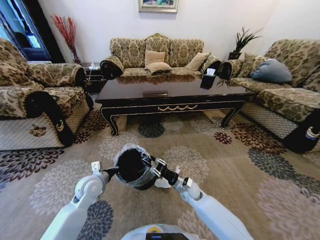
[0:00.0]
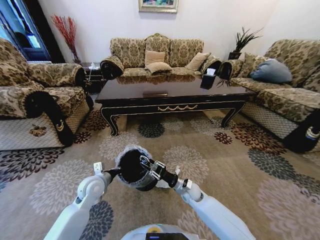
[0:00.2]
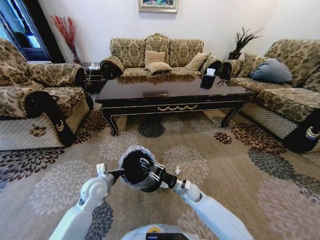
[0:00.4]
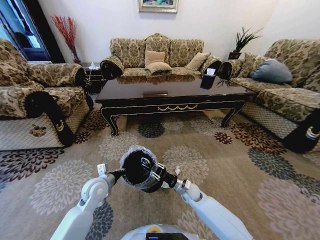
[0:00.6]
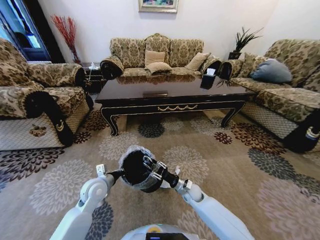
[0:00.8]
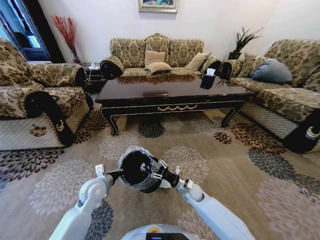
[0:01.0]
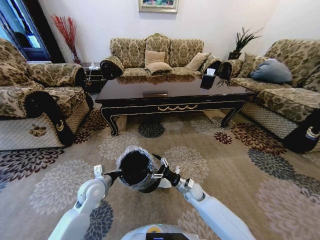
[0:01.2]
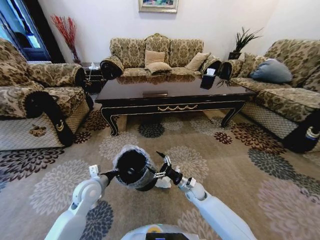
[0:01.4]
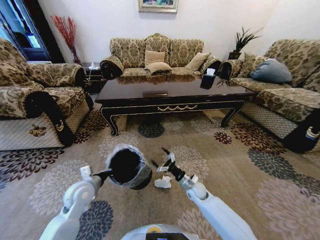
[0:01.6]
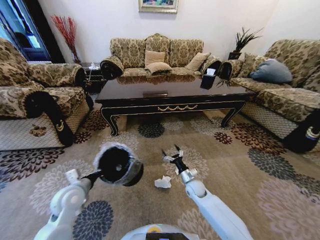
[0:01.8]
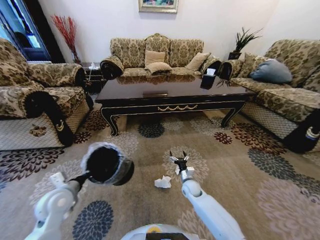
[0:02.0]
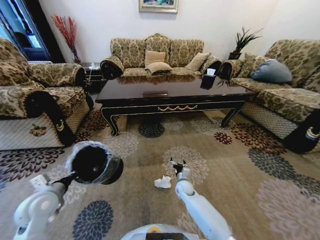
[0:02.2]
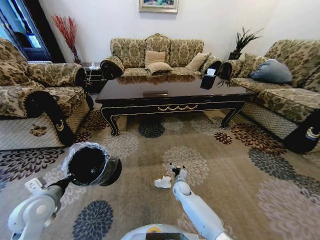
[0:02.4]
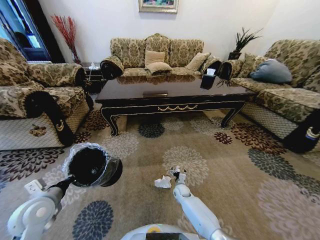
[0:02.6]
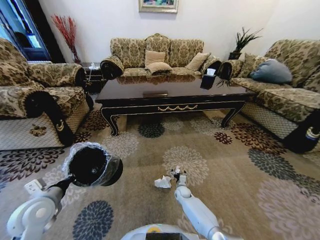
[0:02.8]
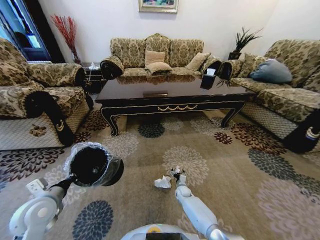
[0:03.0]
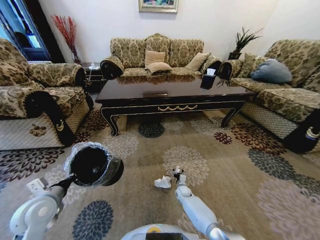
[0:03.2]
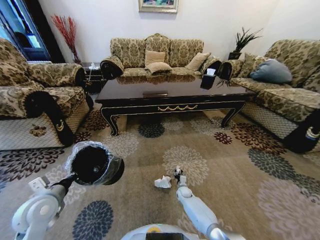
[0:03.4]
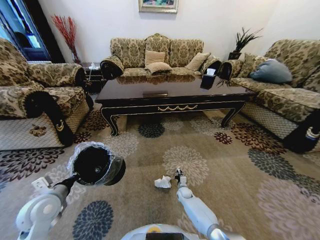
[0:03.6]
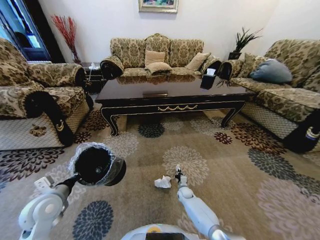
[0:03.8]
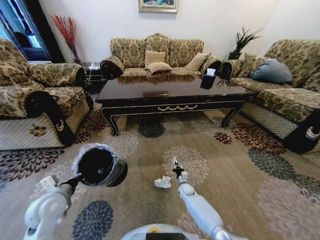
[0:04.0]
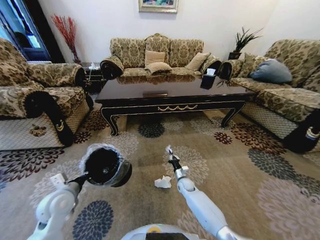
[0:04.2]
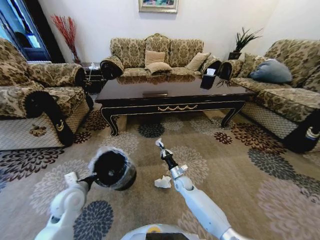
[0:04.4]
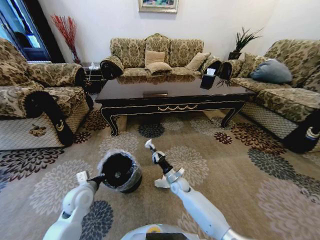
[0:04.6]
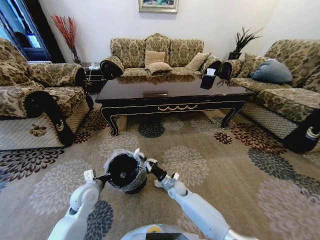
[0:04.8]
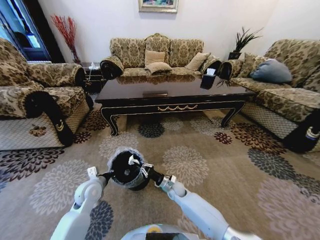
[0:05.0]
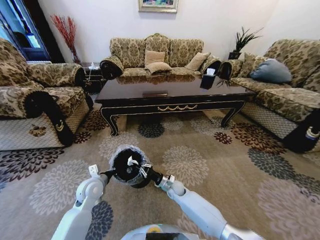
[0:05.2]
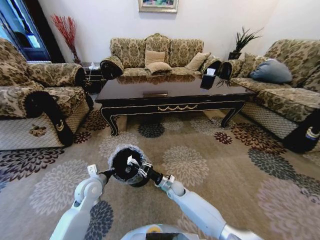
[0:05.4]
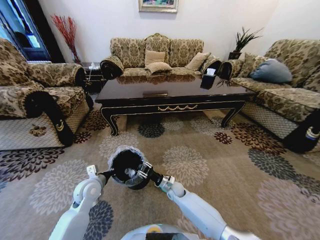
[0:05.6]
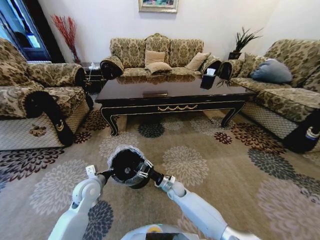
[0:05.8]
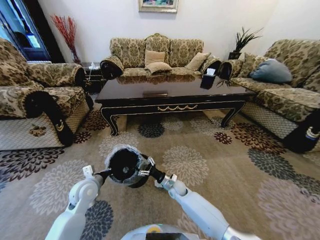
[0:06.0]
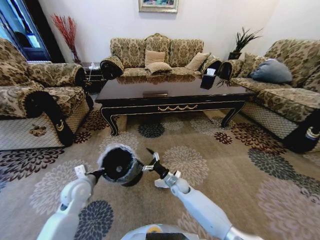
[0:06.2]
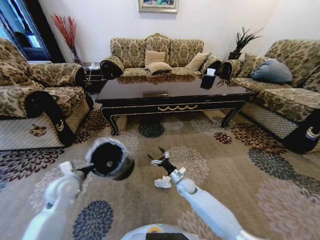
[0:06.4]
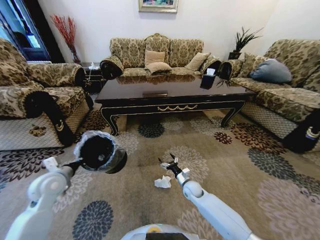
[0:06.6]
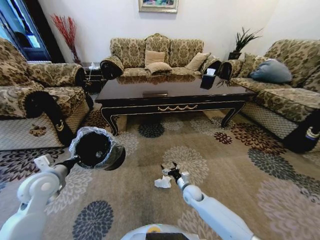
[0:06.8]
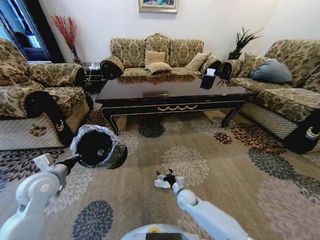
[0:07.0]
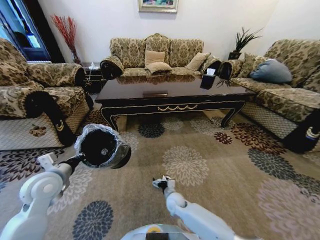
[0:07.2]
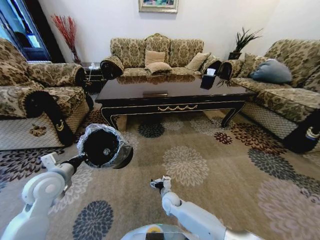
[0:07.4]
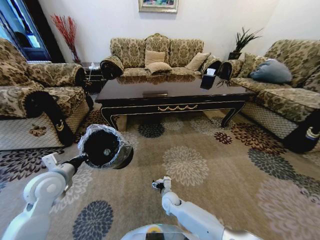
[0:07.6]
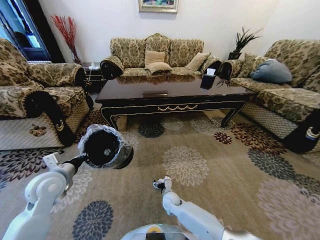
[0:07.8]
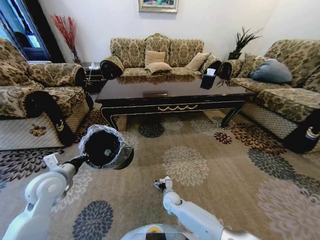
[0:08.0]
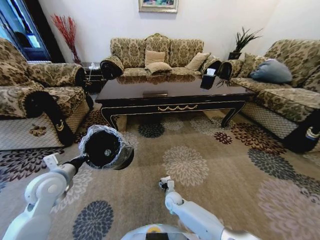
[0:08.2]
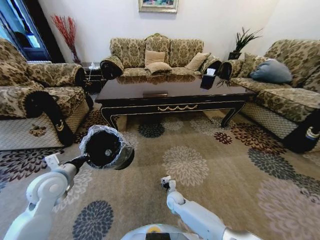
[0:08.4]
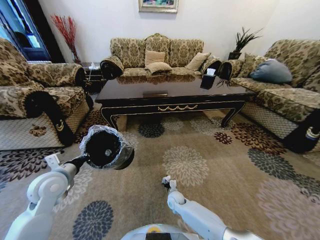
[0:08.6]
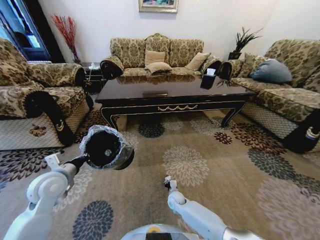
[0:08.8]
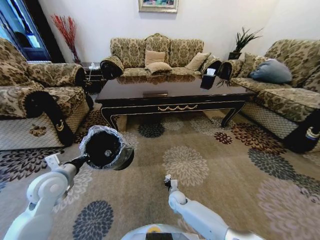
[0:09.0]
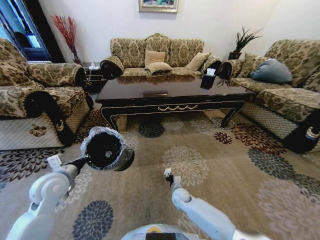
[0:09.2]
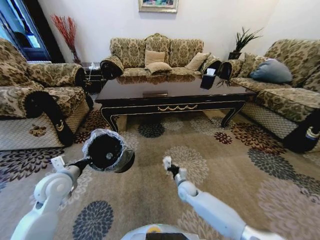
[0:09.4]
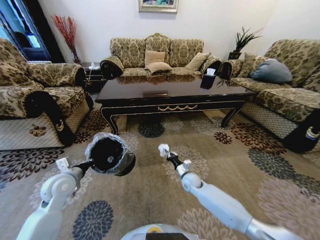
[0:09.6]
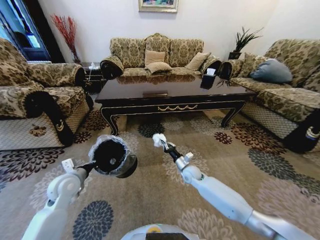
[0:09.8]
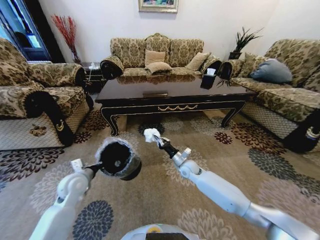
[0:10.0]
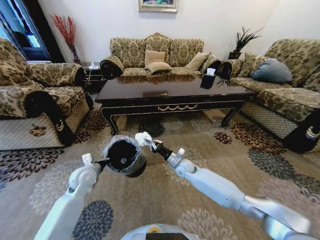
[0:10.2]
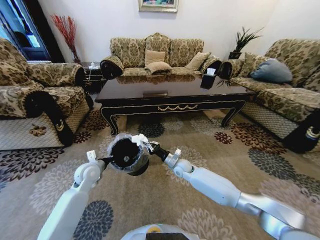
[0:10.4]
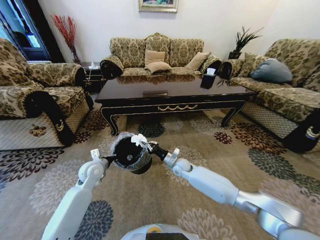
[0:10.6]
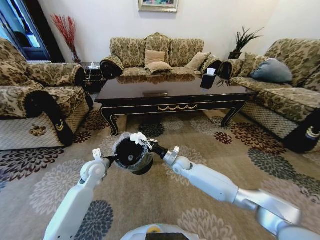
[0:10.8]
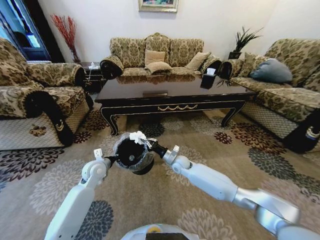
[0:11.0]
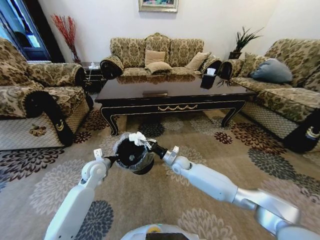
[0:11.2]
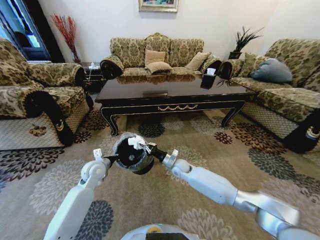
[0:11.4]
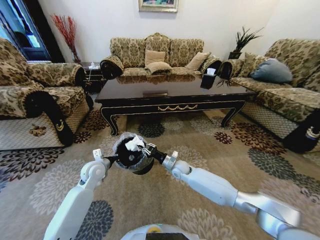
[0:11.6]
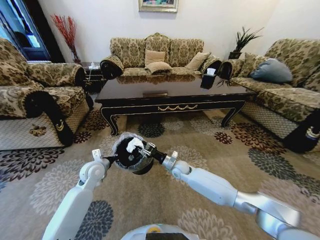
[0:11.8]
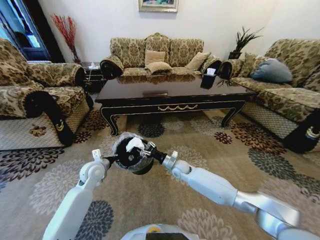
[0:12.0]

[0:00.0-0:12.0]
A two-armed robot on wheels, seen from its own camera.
Task of the whole recording: Move to the front of the table and pick up the trash from the floor, then place it into the trash bin.
0:00.0 to 0:01.6: The right gripper opens.
0:01.6 to 0:03.0: The left gripper shifts roughly 10 cm to the left and backward; the right gripper shifts roughly 15 cm downward.
0:03.0 to 0:04.4: The left gripper heads to the right and downward, covering about 10 cm. Meanwhile the right gripper goes approximately 10 cm upward, and closes up.
0:04.4 to 0:06.0: The right gripper opens.
0:06.0 to 0:07.6: The left gripper goes some 10 cm upward and to the left; the right gripper moves backward, approximately 5 cm, and moves about 10 cm to the right and comes back.
0:07.6 to 0:09.0: The right gripper shifts by roughly 5 cm, and closes up.
0:09.0 to 0:10.4: The left gripper heads forward, downward and to the right, covering some 15 cm. The right gripper is displaced upward and forward by roughly 20 cm.
0:10.4 to 0:12.0: The right gripper opens up.

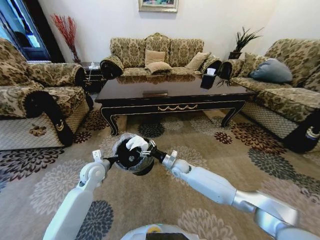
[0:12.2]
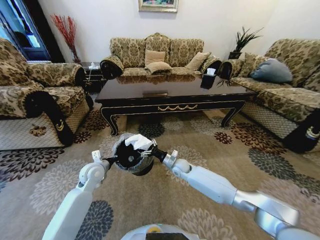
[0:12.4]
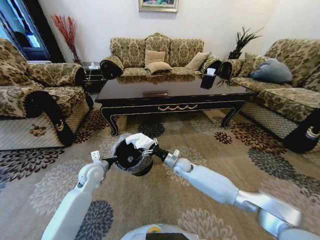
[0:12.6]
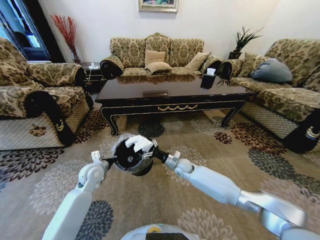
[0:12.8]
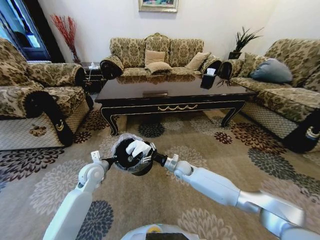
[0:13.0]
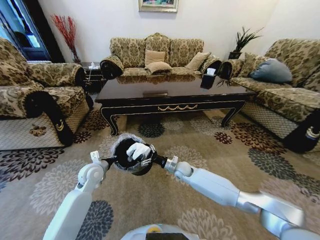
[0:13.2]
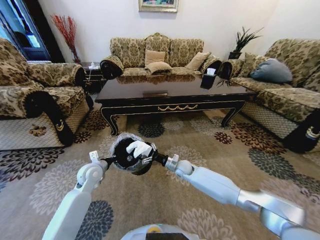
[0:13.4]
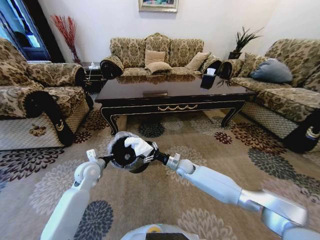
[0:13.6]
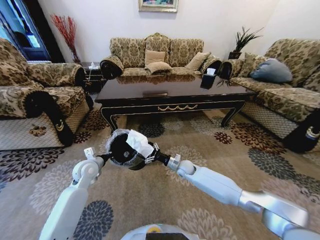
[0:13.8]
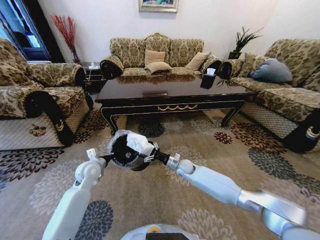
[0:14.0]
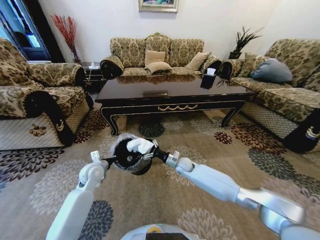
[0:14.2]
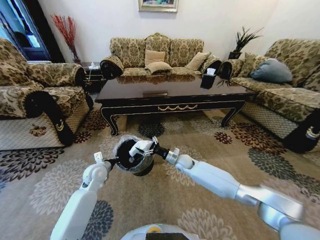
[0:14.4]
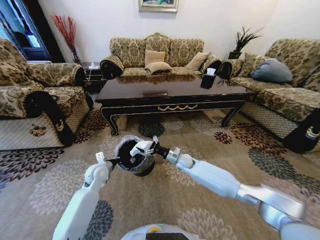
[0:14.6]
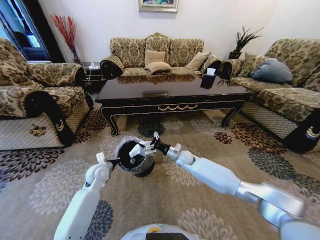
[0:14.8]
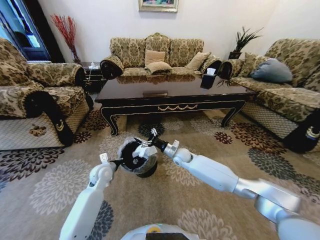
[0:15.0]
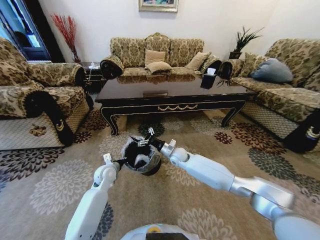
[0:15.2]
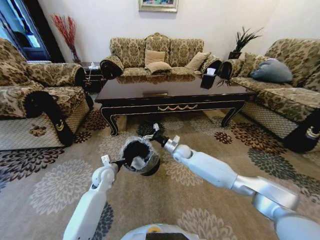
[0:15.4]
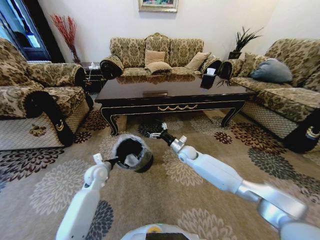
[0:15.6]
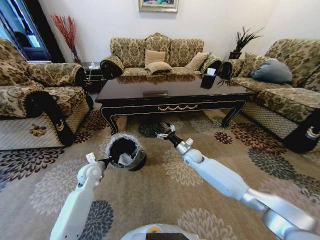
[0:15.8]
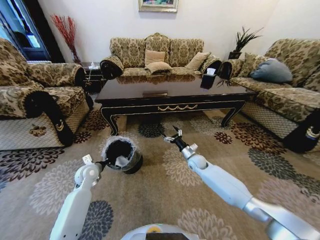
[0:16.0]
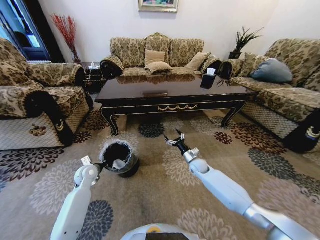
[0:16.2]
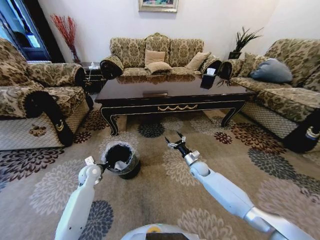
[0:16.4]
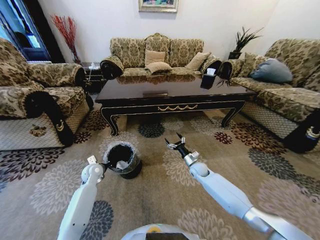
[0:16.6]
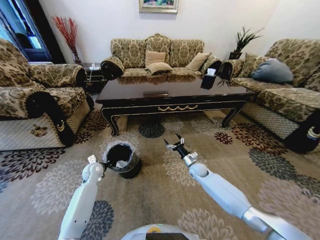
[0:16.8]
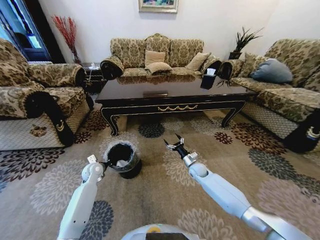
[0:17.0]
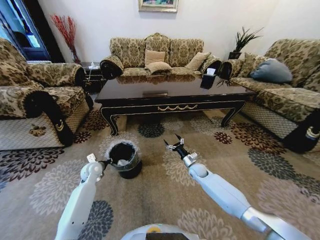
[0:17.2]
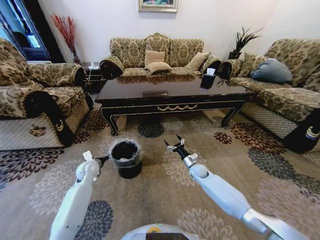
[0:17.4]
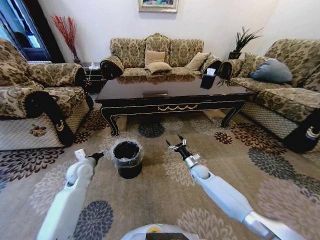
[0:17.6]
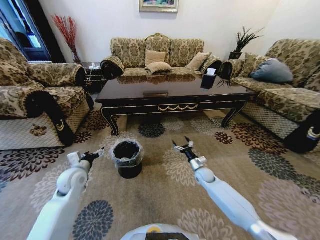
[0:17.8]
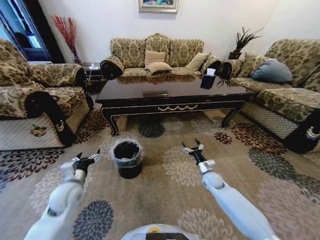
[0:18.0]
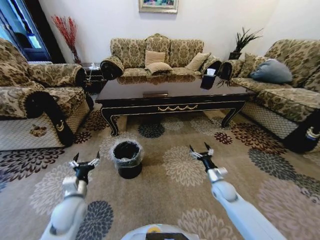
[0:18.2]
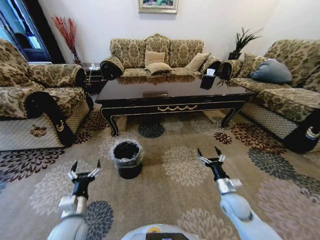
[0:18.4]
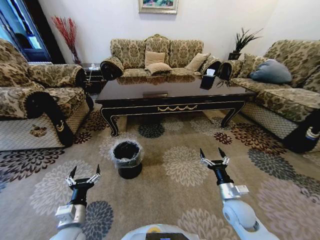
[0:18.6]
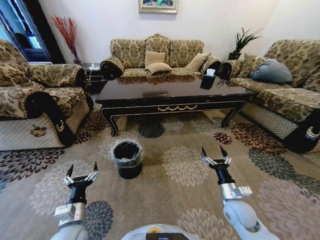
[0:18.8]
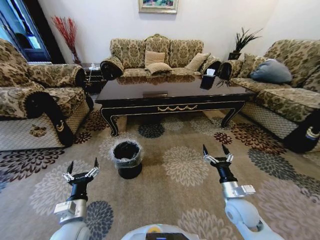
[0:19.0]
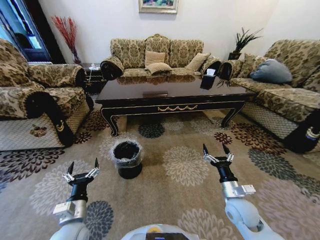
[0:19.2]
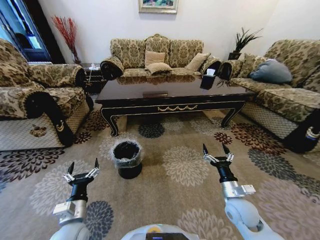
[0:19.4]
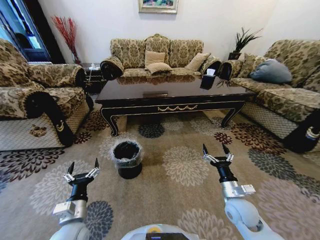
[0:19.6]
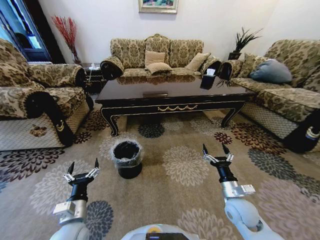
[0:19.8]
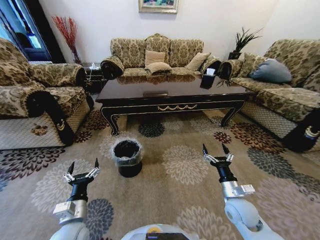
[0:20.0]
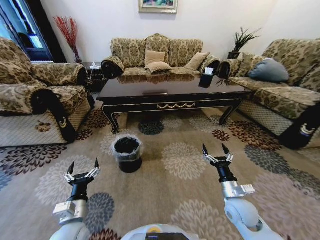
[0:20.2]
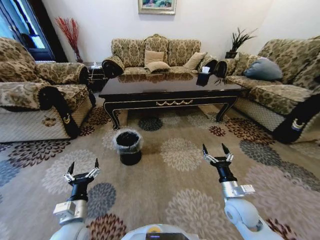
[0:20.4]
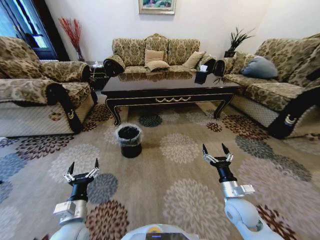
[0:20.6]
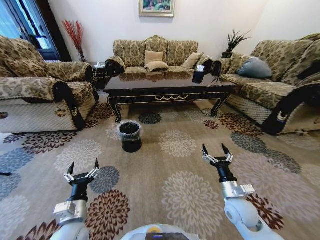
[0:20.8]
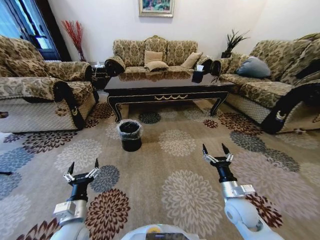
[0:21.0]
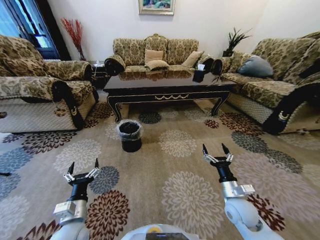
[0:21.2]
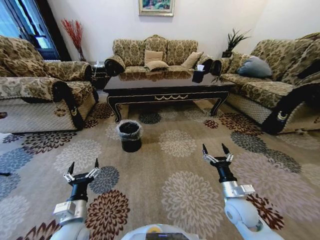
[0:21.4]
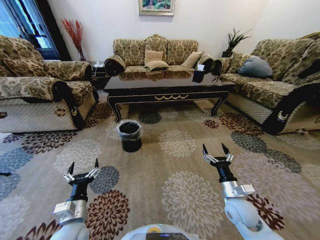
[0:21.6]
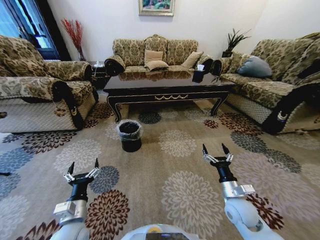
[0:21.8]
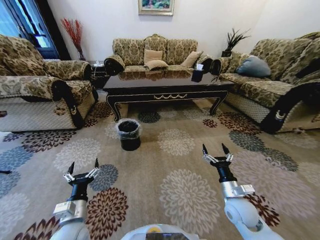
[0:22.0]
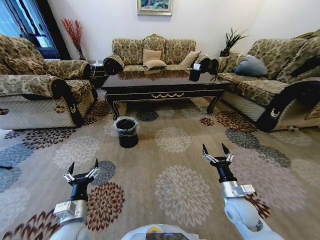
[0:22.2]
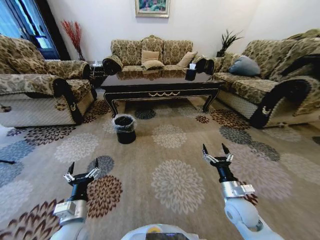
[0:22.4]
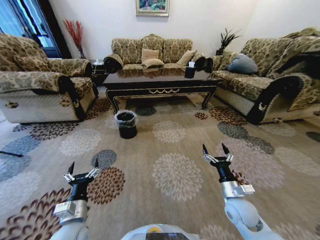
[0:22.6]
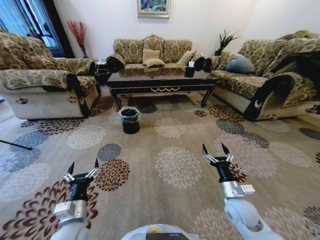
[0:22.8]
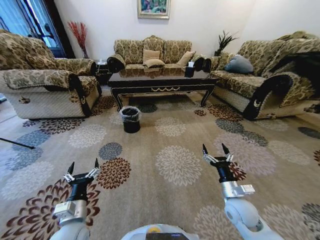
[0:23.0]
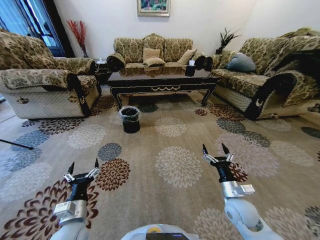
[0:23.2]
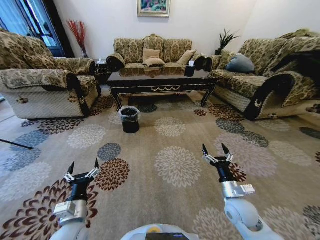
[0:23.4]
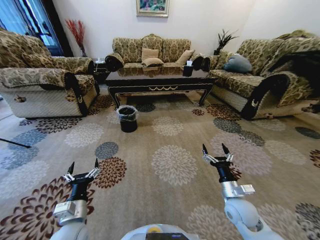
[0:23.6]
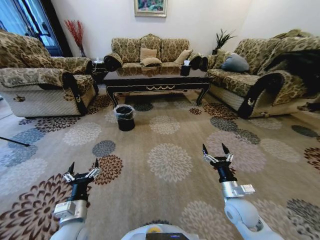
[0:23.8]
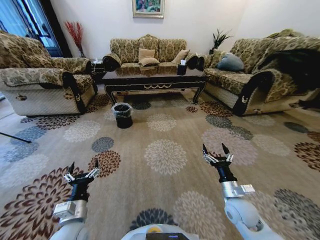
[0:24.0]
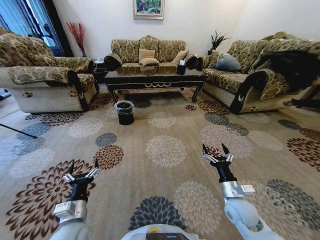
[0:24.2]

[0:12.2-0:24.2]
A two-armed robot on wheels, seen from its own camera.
Task of the whole recording: Move to the front of the table and pick up the trash from the floor, then place it into the trash bin.
0:12.2 to 0:13.8: The grippers move only a little.
0:13.8 to 0:15.2: The right gripper travels upward by approximately 5 cm; the left gripper travels to the right and downward by about 10 cm.
0:15.2 to 0:16.6: The right gripper is displaced to the right and downward by approximately 15 cm, while the left gripper is displaced to the left by roughly 10 cm.
0:16.6 to 0:18.2: The right gripper is displaced backward and to the right by approximately 15 cm. Meanwhile the left gripper travels backward by approximately 20 cm, and opens up.
0:18.2 to 0:19.8: The right gripper is displaced backward and upward by about 10 cm, while the left gripper shifts approximately 5 cm backward.
